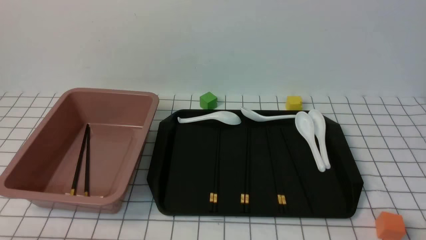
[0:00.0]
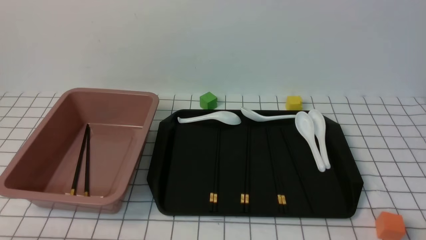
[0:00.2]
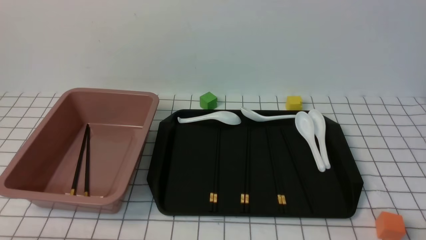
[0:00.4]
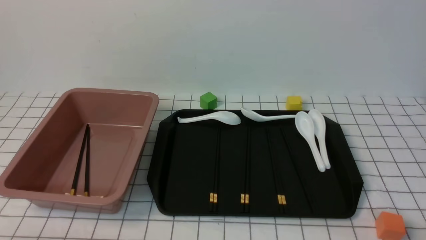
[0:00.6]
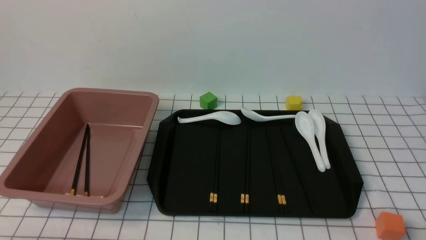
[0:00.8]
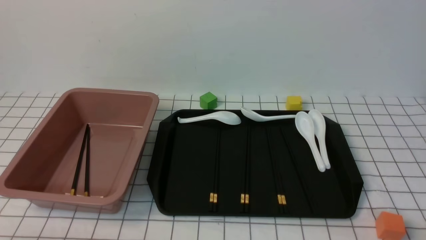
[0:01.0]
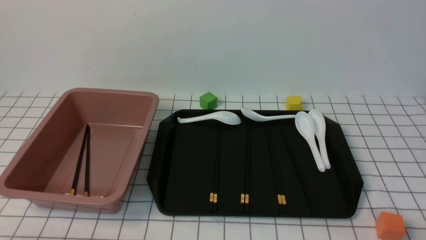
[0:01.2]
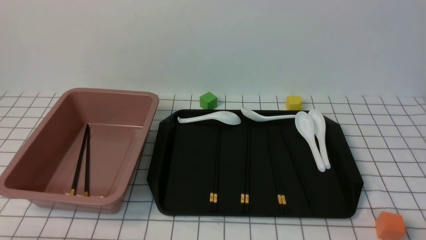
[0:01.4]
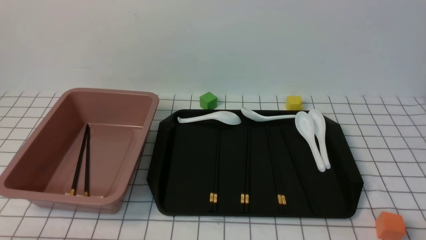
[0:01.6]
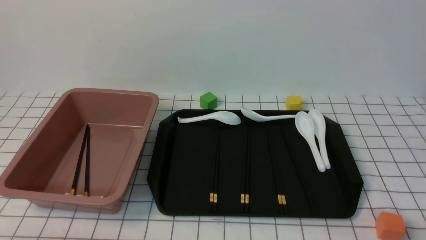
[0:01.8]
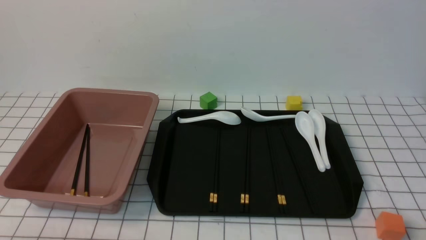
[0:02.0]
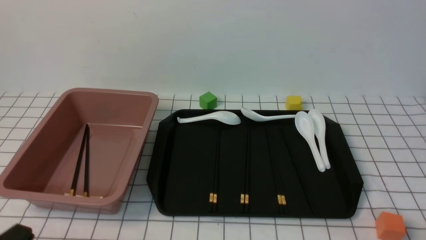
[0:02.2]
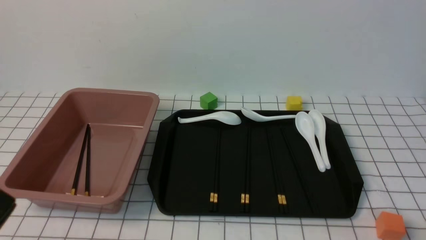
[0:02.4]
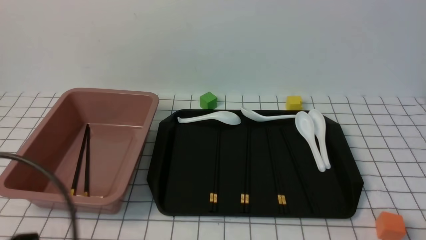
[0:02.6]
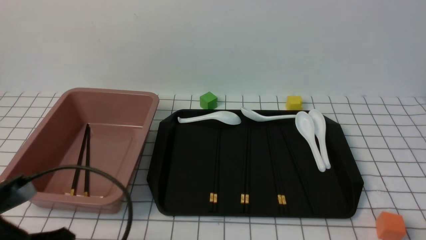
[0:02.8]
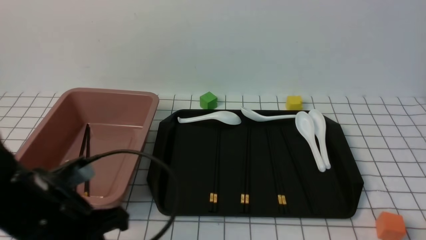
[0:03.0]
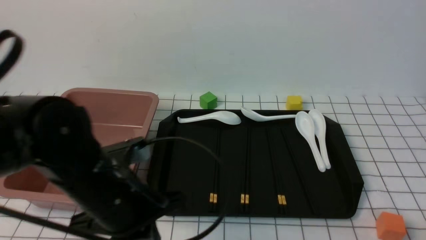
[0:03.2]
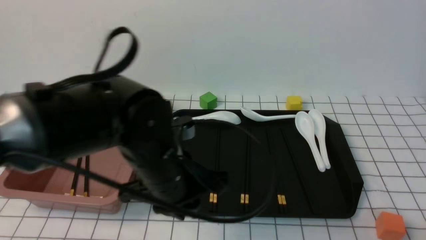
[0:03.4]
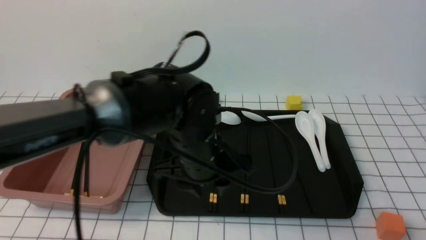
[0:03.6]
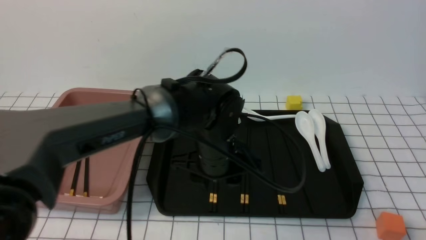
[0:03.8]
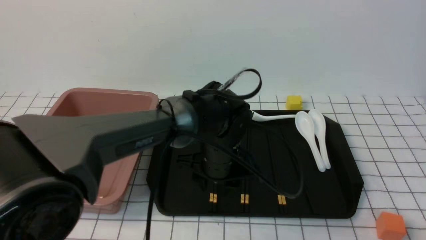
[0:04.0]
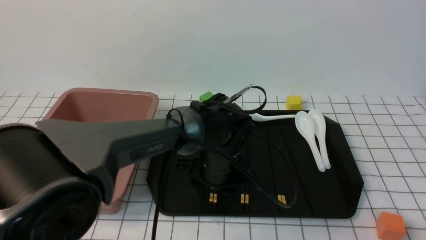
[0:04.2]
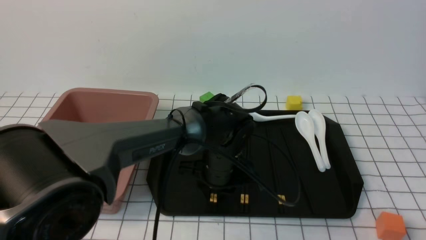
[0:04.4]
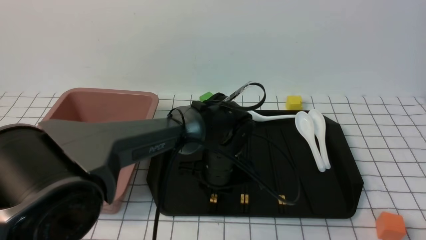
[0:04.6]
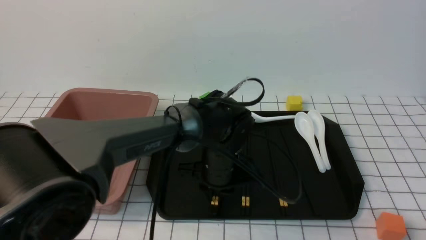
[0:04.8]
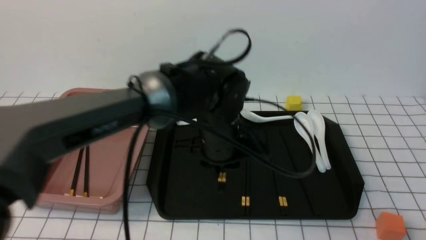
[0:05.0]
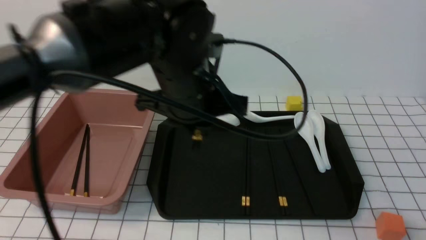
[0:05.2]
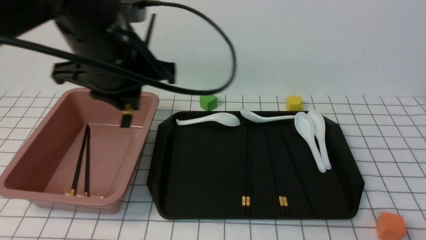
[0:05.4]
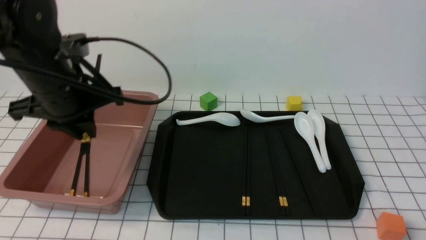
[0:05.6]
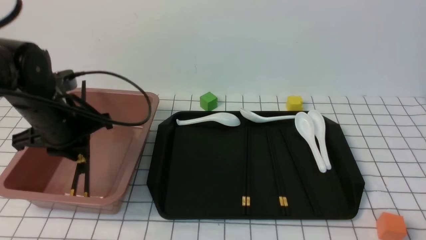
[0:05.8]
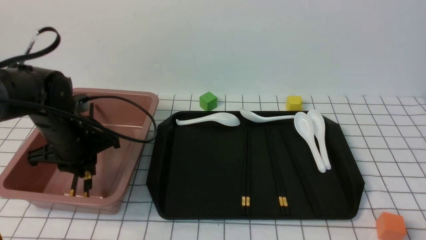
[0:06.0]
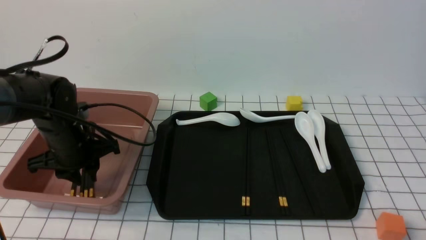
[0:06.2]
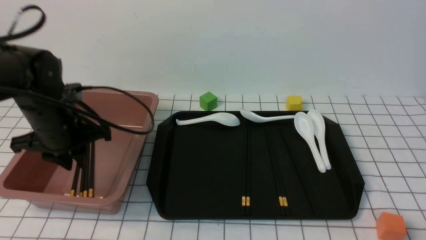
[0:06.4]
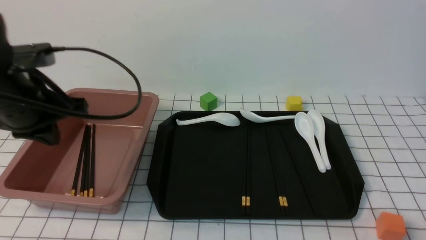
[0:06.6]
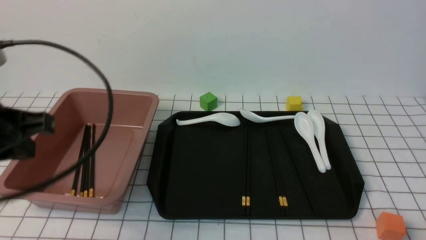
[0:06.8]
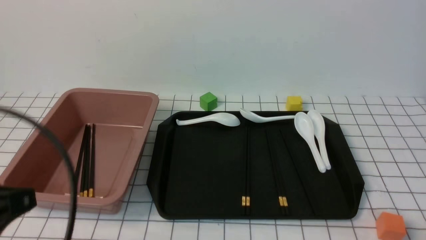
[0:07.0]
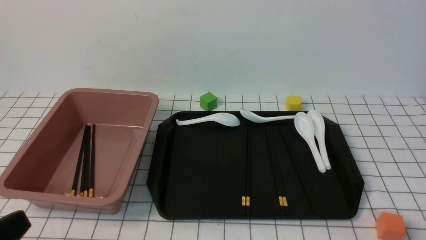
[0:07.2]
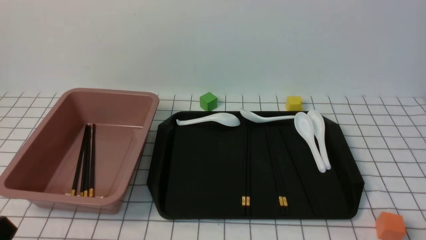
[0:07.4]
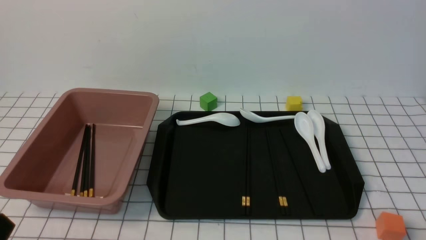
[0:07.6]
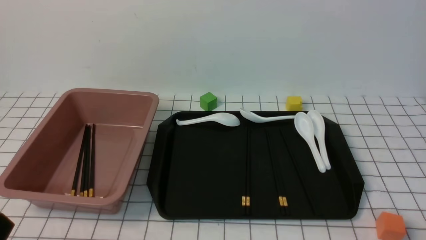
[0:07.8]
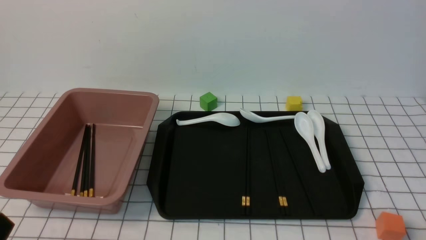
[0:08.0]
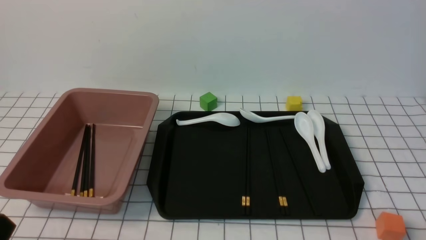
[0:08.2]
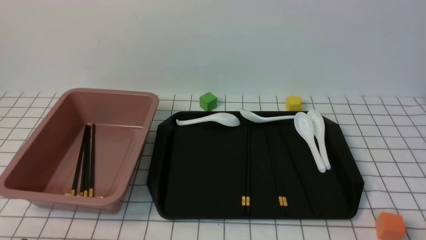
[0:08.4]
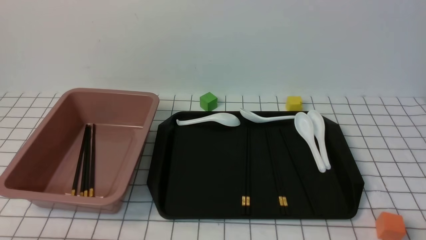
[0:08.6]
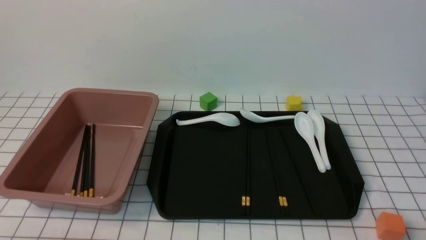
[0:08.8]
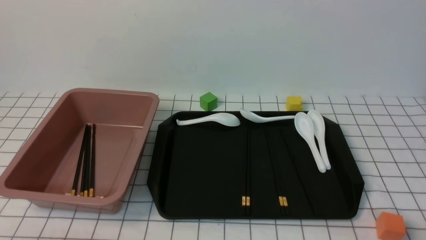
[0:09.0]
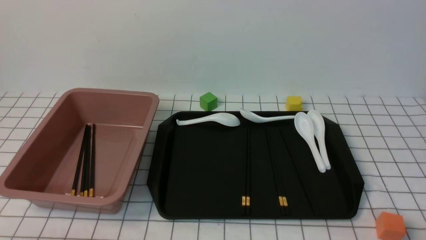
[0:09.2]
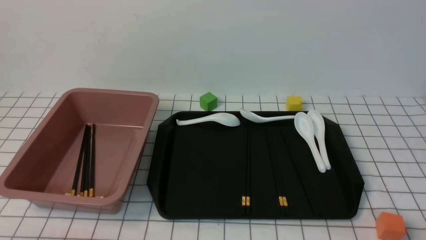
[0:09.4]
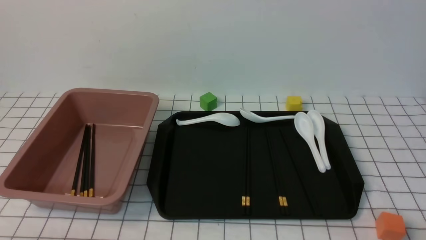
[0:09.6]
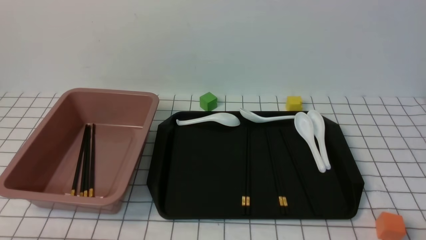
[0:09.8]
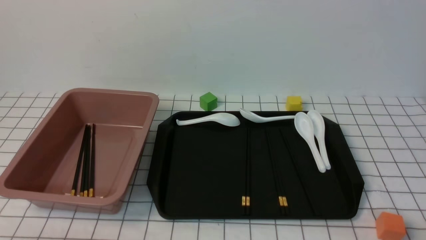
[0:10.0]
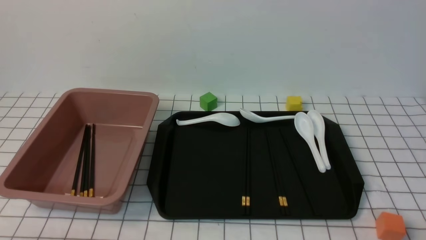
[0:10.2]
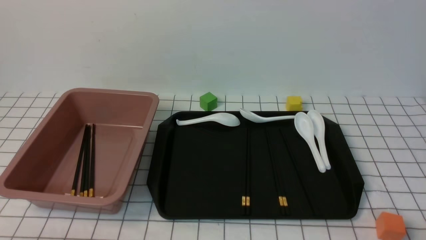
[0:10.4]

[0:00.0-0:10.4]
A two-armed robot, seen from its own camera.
Step, 0:00.0 to 0:04.8: use the left arm to grab a pair of chopsticks.
Step, 0:05.0 to 0:06.4: use the left arm to put the chopsticks into the lunch box.
0:01.4 to 0:03.0: The left gripper shifts roughly 15 cm forward, upward and to the right.
0:03.0 to 0:04.4: The left gripper is displaced to the right, forward and downward by about 30 cm, and opens.
0:04.4 to 0:06.0: The left gripper goes approximately 25 cm to the left.
0:06.0 to 0:07.4: The left gripper travels backward by some 30 cm, and closes its fingers.
0:09.0 to 0:10.4: The two grippers keep their place.
